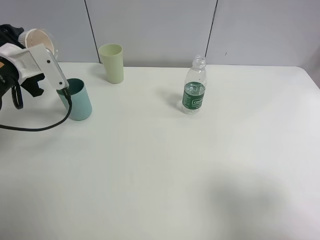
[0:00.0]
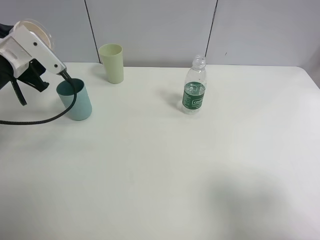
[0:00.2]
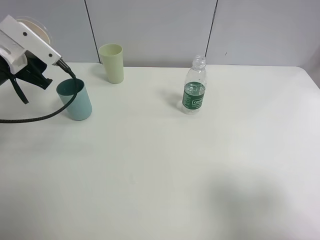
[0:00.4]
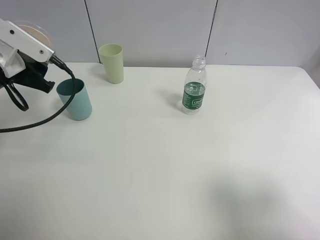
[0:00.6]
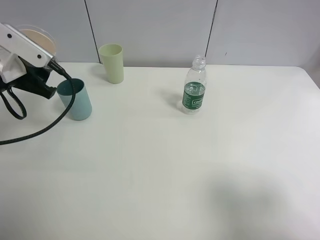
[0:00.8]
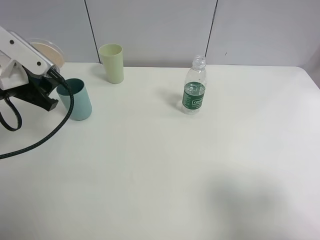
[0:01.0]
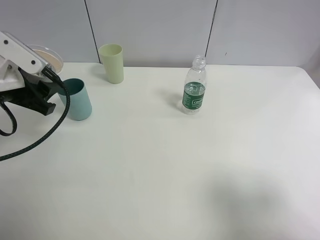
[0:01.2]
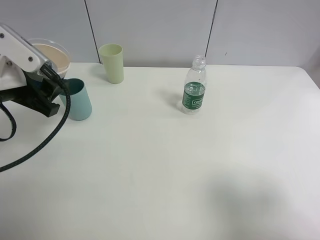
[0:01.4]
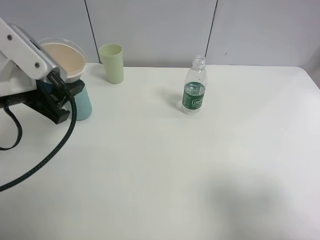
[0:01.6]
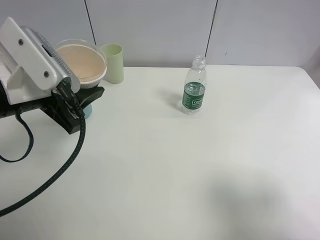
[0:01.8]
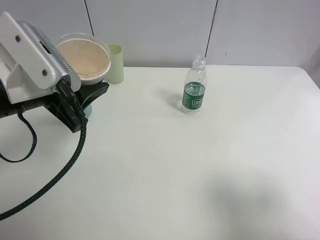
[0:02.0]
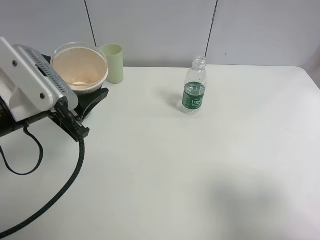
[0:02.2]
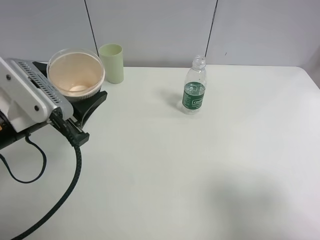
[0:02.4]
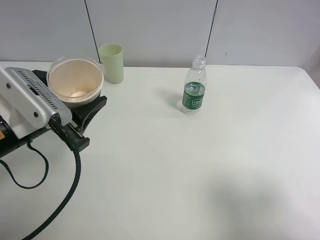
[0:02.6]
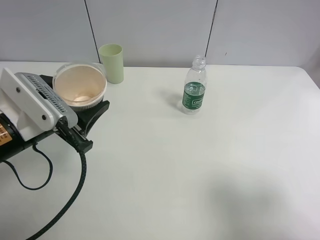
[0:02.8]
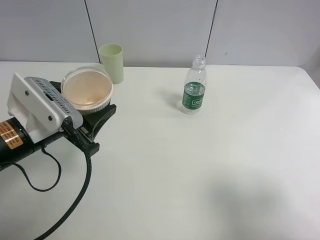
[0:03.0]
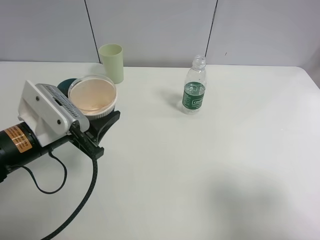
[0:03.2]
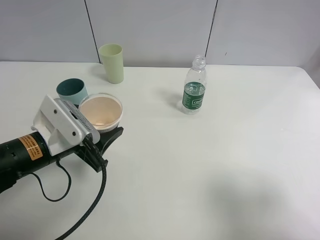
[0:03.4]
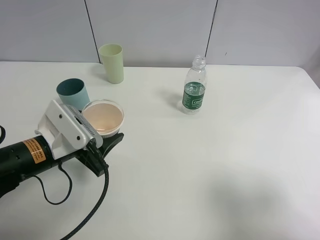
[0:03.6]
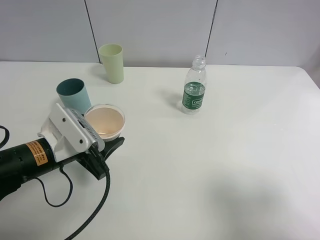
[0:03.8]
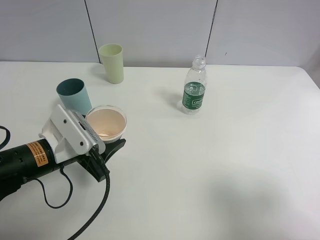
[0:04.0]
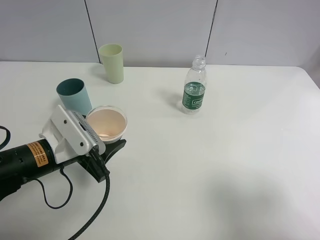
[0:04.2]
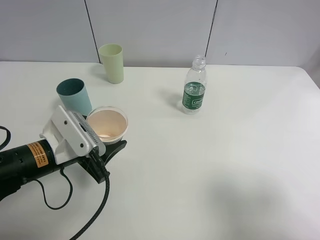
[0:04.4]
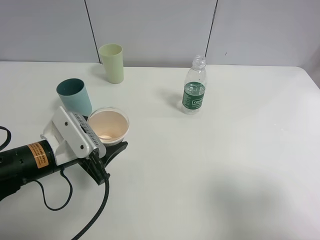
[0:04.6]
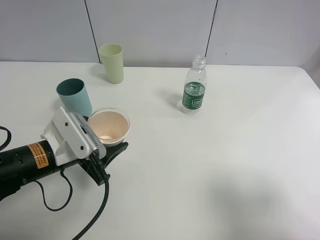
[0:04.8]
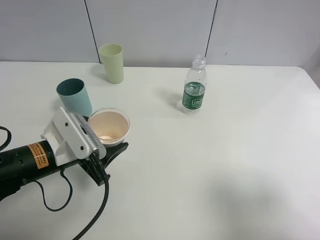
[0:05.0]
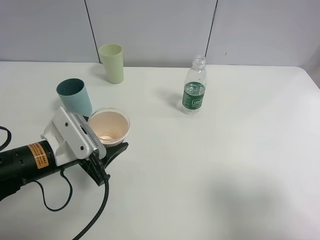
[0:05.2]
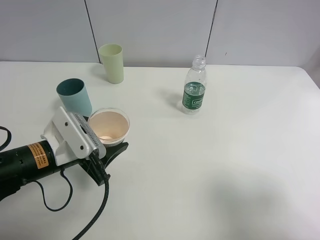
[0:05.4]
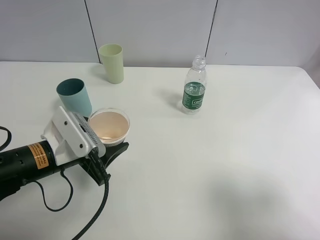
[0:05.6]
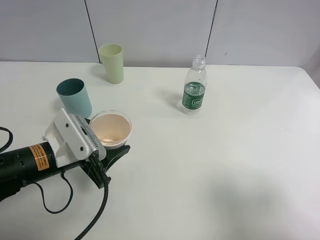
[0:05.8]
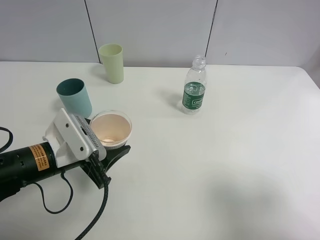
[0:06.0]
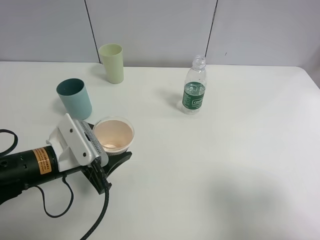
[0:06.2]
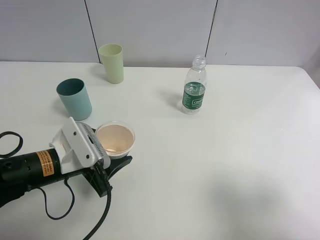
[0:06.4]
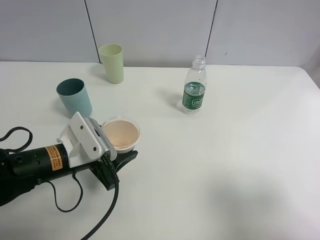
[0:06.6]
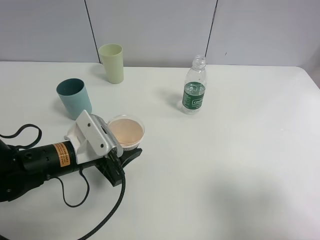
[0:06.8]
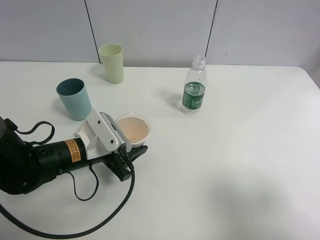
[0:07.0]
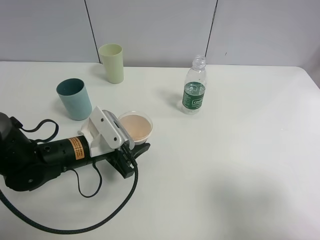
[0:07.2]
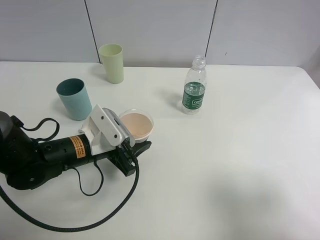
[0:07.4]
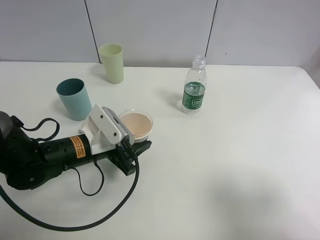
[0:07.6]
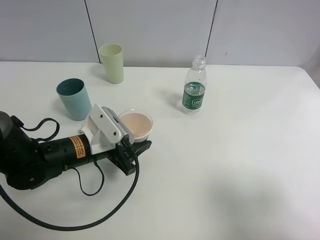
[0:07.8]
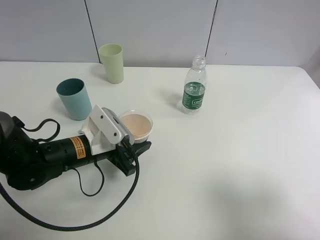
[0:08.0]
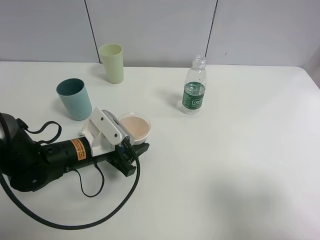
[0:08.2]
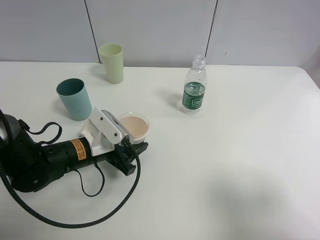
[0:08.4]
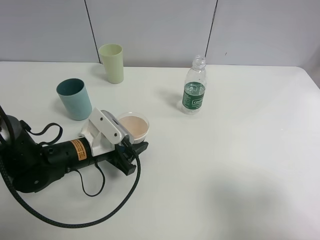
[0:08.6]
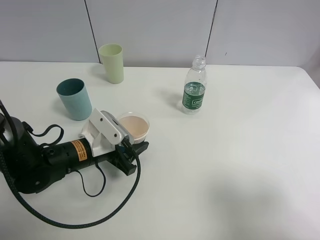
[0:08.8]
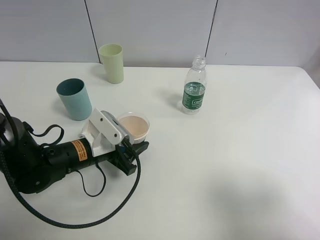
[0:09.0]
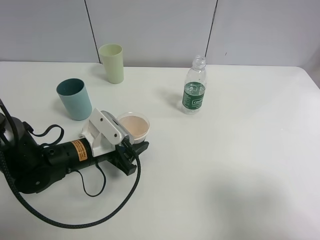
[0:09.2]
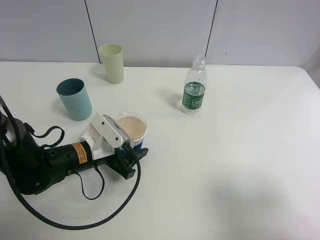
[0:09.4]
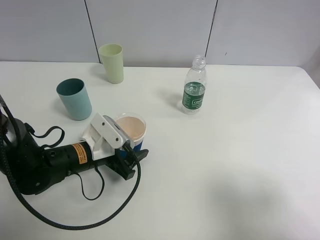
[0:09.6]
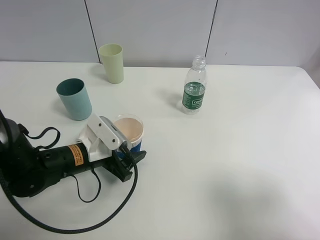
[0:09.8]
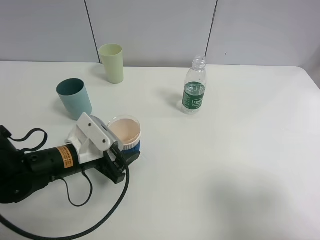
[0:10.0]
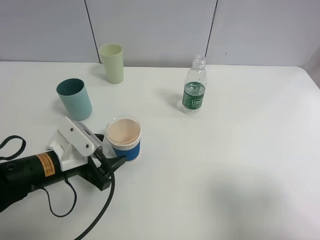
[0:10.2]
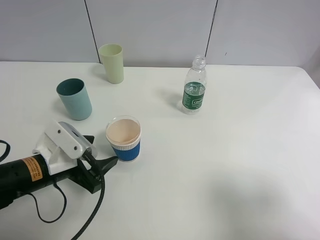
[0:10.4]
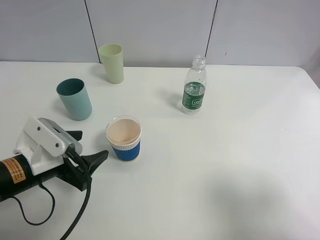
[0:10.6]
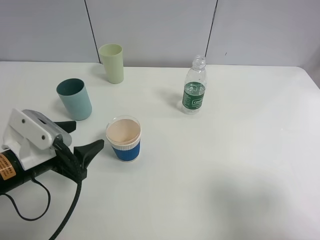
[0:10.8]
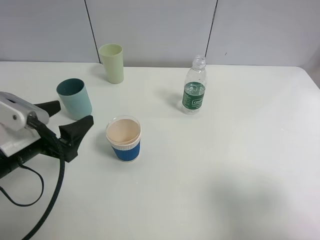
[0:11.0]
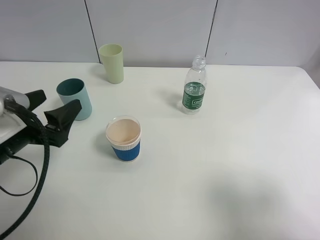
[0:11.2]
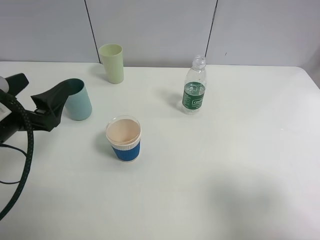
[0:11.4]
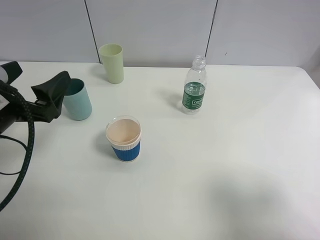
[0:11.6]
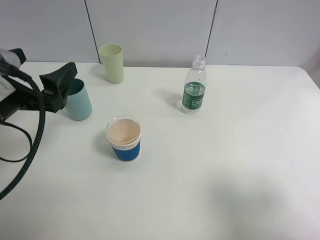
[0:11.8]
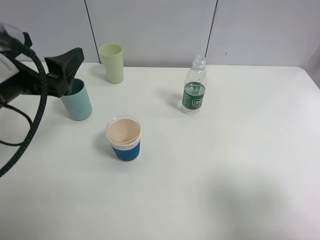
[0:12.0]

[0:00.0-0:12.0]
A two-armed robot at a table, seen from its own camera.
Task of the whole recording: use a clamp to hold the bottle of the drink, pour the beverage into a random cup, then clamp the cup containing the drink and pour the drink into another random cup.
Step, 0:00.2 to 0:10.4: Place the paper cup on the table with left gripper.
0:00.0 to 0:01.6: The left gripper heads backward and to the right, covering some 10 cm.
0:01.6 to 0:03.0: The left gripper is displaced downward by roughly 5 cm.
0:03.0 to 0:04.4: The left gripper goes some 5 cm downward.
0:04.4 to 0:06.0: Both grippers stay put.
0:06.0 to 0:07.6: The left gripper shifts by about 5 cm.
0:07.6 to 0:09.0: The grippers make only small movements.
0:09.0 to 0:10.4: The left gripper moves to the left and backward, roughly 10 cm.
0:10.4 to 0:12.0: The left gripper is displaced upward by about 15 cm, and opens its fingers.

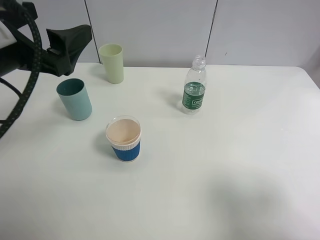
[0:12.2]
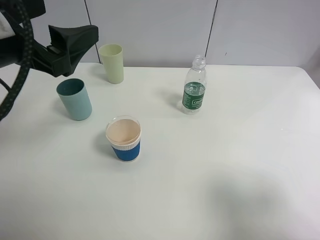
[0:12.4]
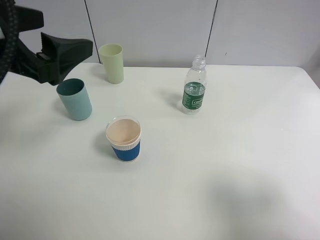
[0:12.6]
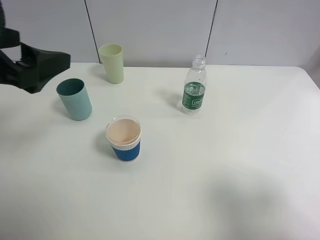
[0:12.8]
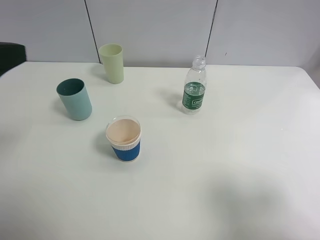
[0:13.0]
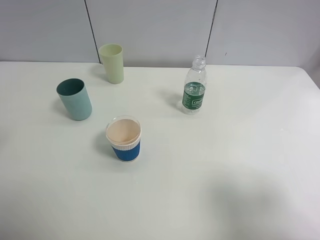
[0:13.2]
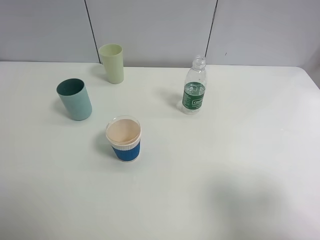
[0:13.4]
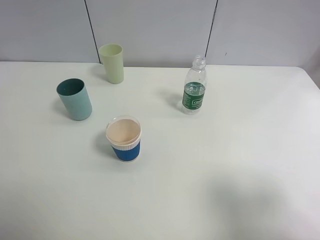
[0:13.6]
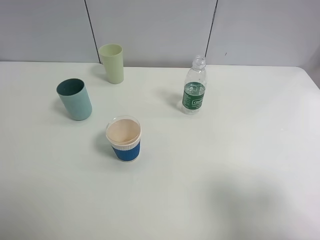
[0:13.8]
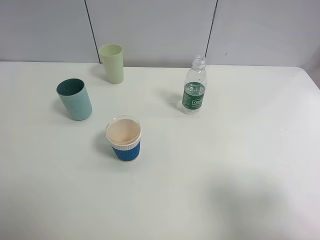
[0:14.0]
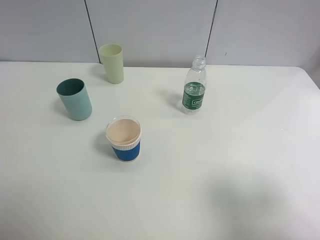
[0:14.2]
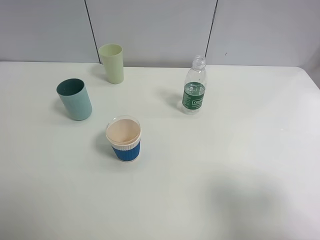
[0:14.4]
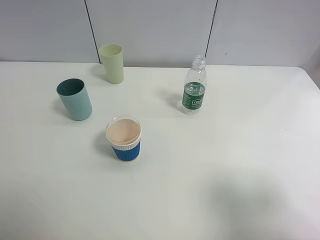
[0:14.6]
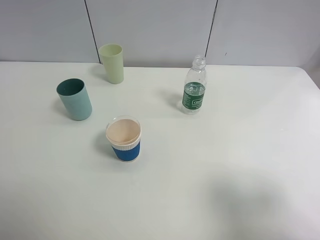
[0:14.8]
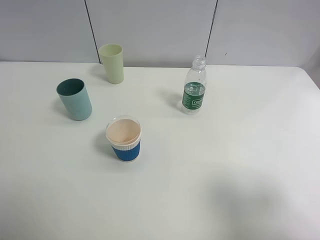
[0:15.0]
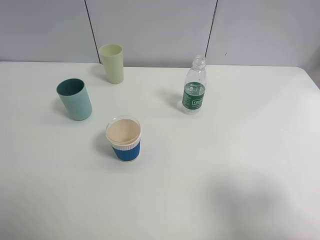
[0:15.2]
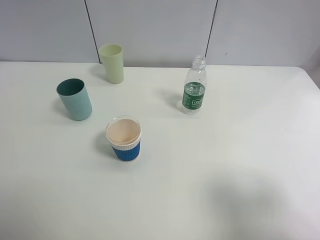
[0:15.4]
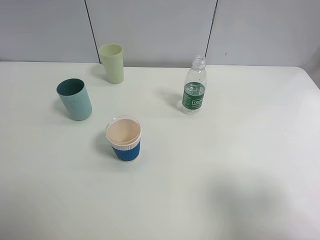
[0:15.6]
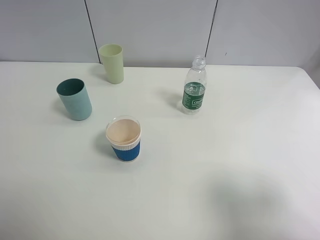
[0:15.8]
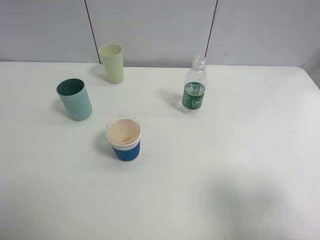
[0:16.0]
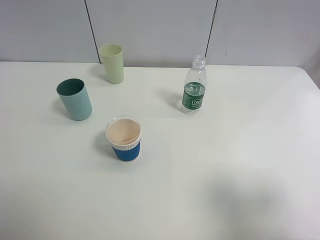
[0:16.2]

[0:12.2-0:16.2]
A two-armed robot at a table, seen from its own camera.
Task of the whole recording: use a clamp to hold the bottle of the drink, pour the beverage into a random cup, then clamp the cup containing the drink and pour the drink into another random cup.
0:12.2 to 0:13.6: The left gripper is displaced backward and to the left by some 20 cm.
0:14.8 to 0:16.2: The two grippers keep their place.
